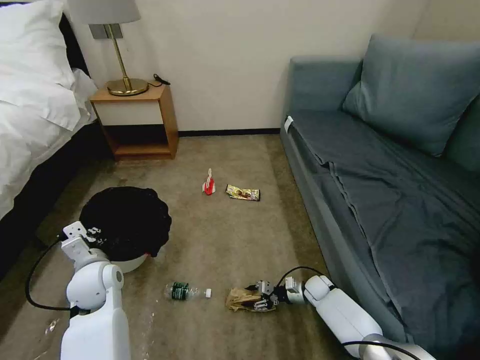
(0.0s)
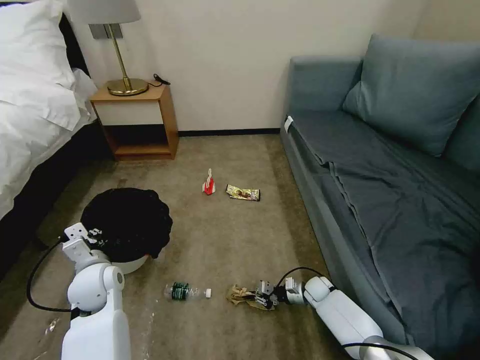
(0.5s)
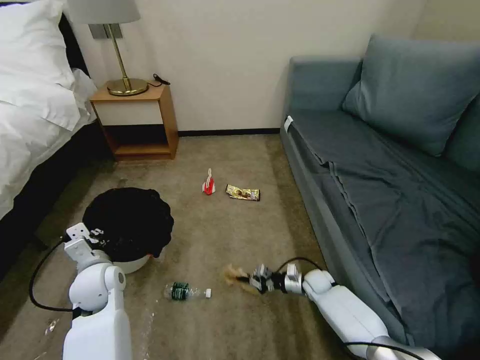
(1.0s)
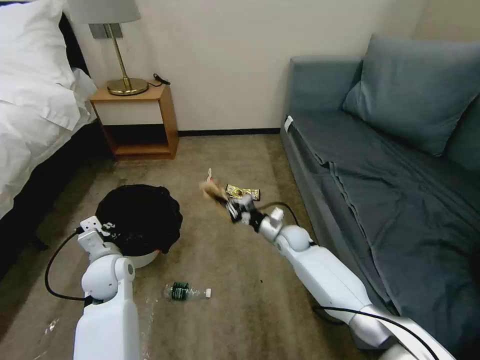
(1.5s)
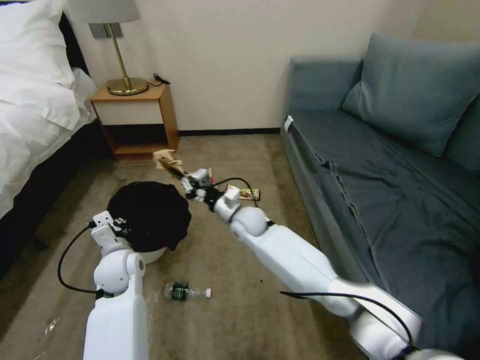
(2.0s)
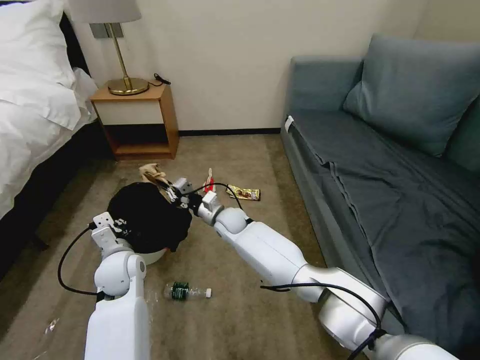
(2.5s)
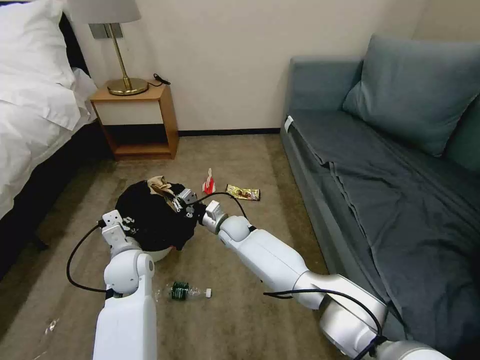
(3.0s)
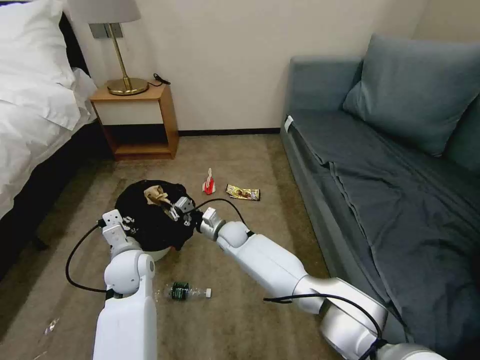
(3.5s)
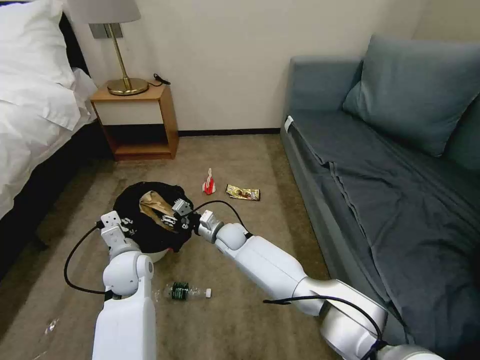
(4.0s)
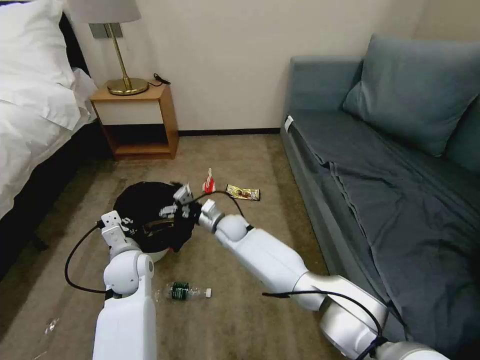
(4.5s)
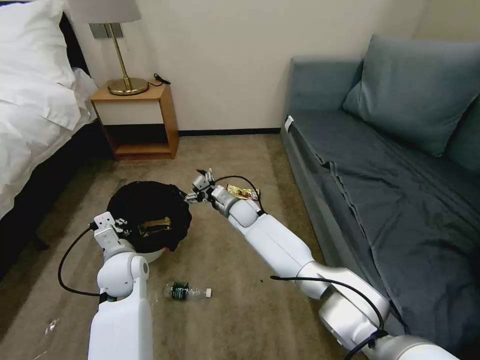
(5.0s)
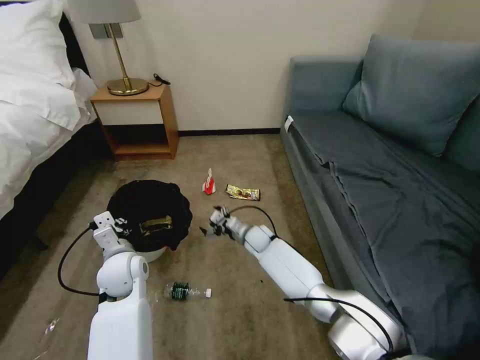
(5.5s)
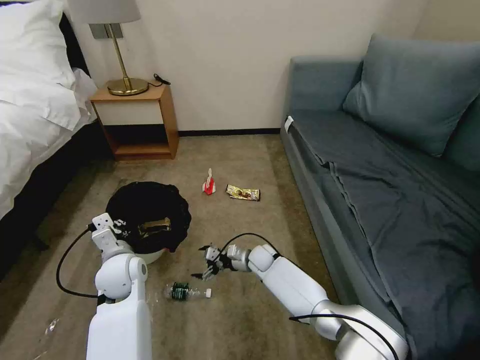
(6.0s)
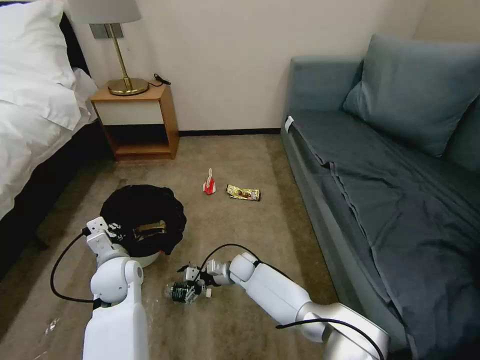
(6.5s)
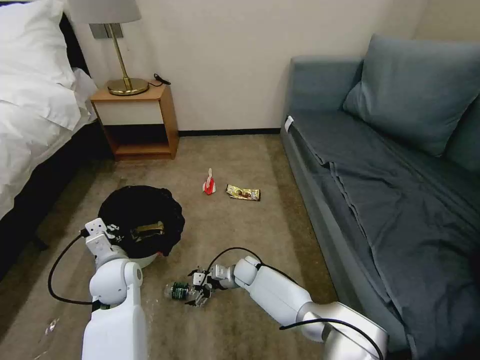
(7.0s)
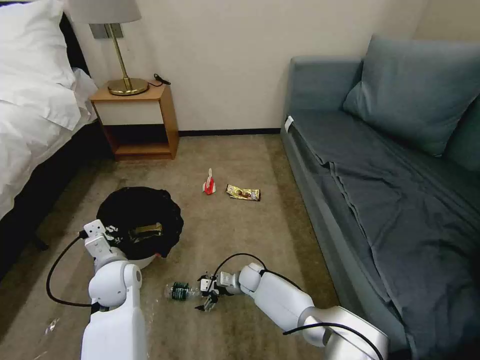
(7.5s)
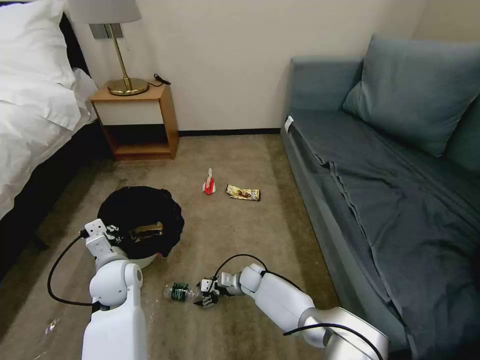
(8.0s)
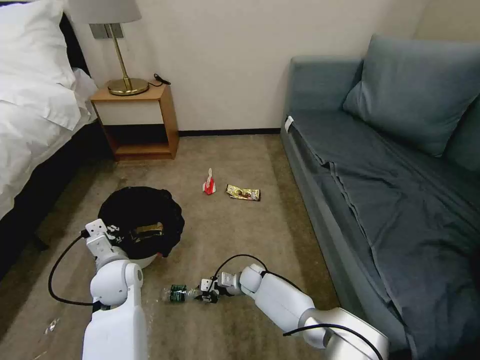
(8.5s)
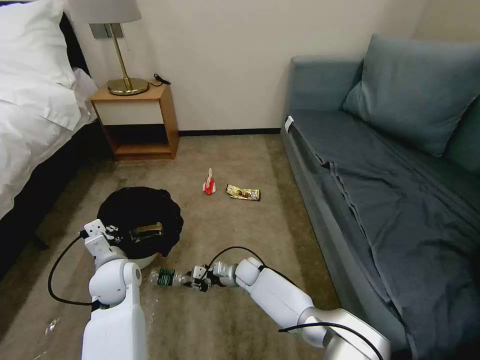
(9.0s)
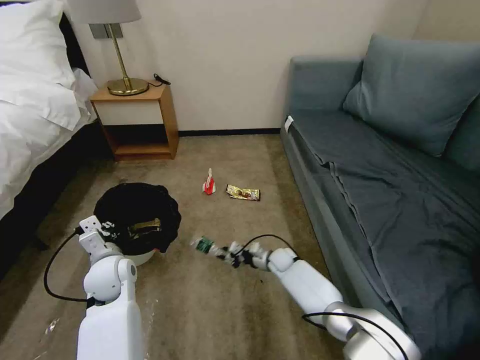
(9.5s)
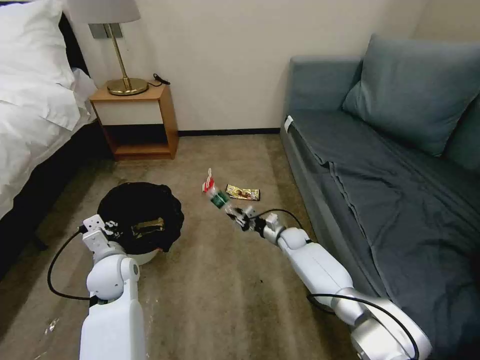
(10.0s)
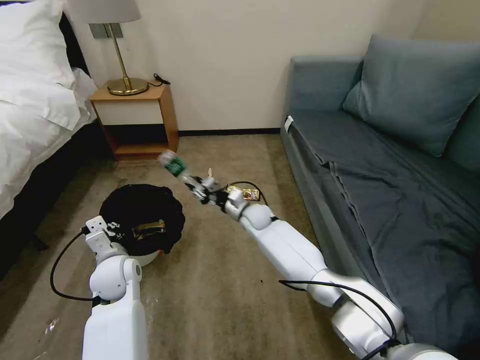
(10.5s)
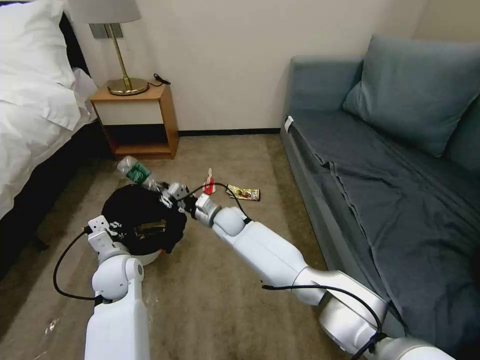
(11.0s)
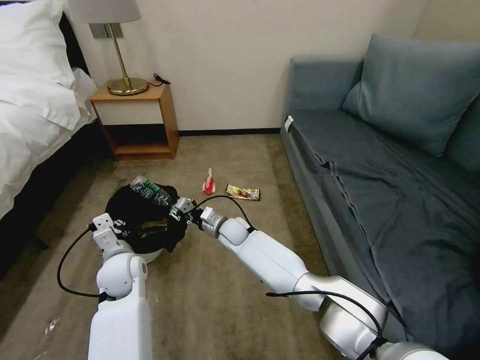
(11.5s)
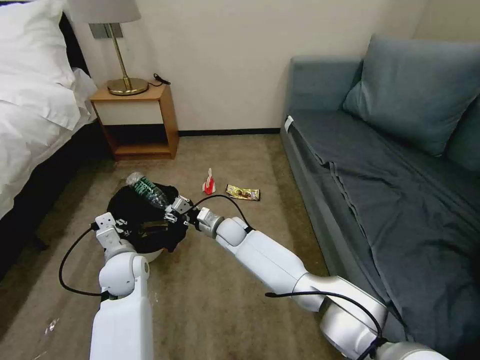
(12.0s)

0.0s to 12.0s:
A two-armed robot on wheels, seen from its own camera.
Task of the whole recording: Pick up the trash bin, then pick up the garbage on the floor and place it into the trash bin.
0.0s to 2.0s: The left gripper shifts by roughly 5 cm. Meanwhile the right gripper goes roughly 35 cm upward and to the left, and closes.
2.0s to 4.0s: The right gripper goes approximately 10 cm downward and to the left, and opens its fingers.
4.0s to 6.0s: The right gripper travels to the right and downward by some 15 cm, and opens.
6.0s to 8.0s: The right gripper heads downward, covering about 5 cm.
8.0s to 10.0s: The right gripper is displaced to the right, forward and upward by about 20 cm, and closes.
10.0s to 12.0s: The right gripper is displaced to the left by roughly 20 cm.

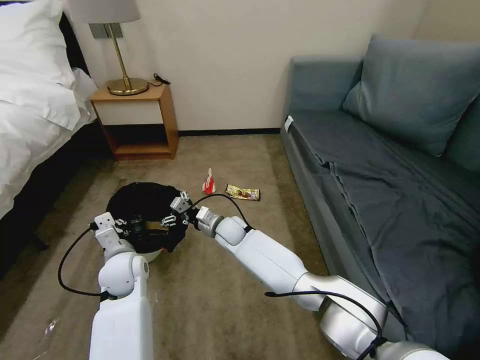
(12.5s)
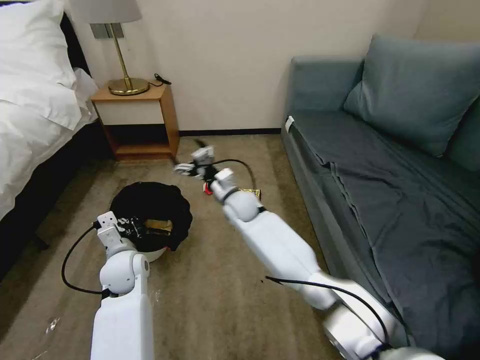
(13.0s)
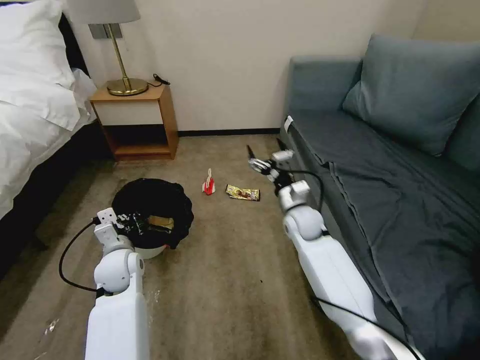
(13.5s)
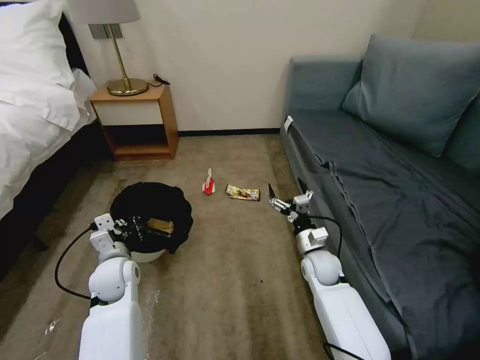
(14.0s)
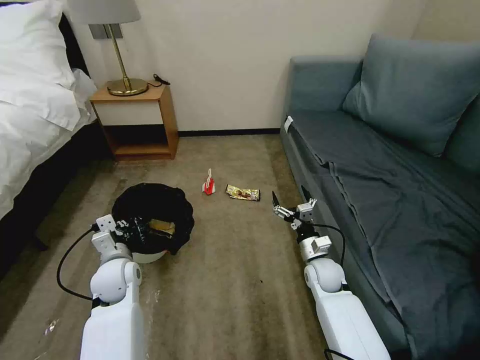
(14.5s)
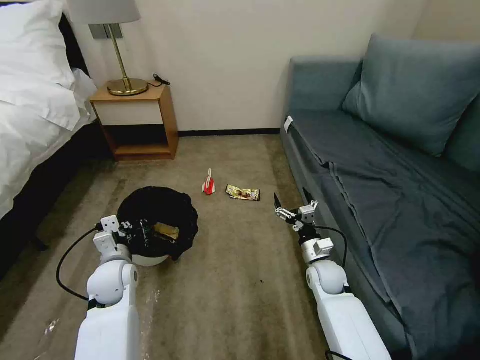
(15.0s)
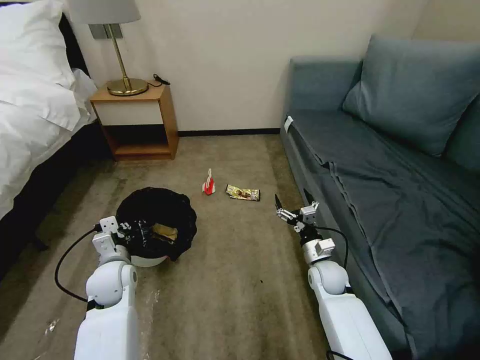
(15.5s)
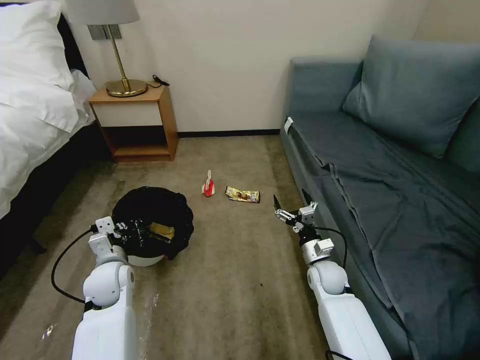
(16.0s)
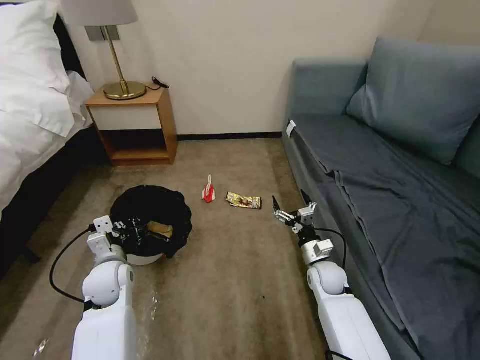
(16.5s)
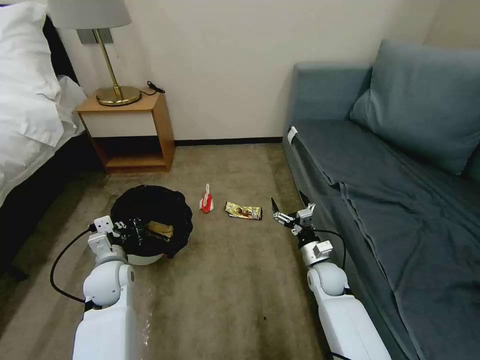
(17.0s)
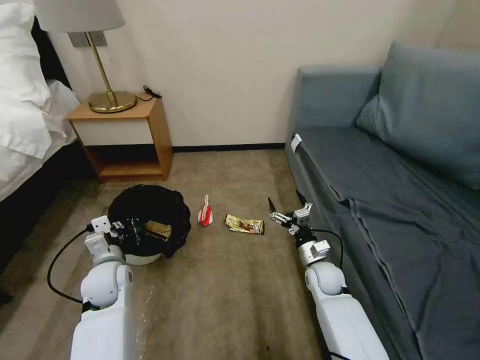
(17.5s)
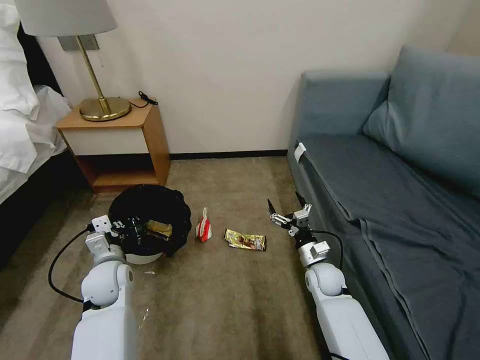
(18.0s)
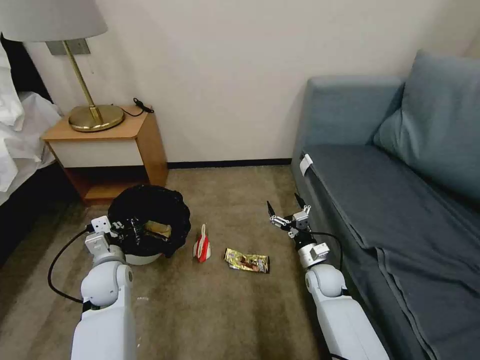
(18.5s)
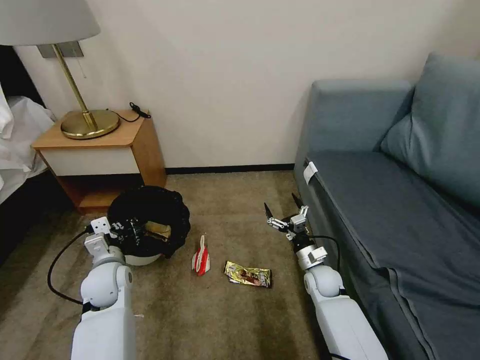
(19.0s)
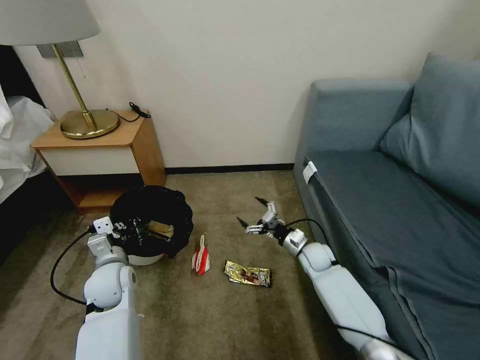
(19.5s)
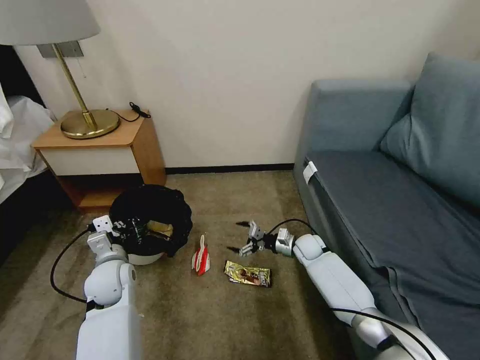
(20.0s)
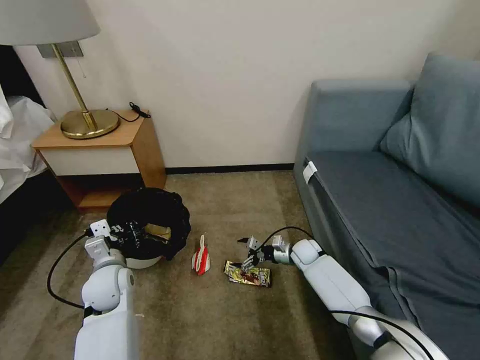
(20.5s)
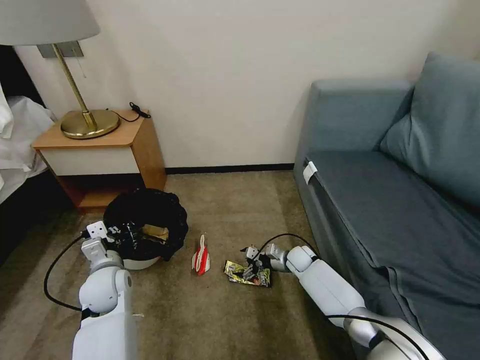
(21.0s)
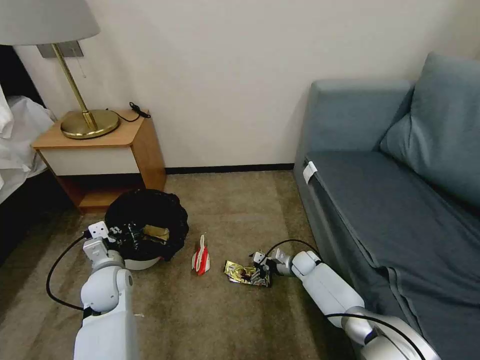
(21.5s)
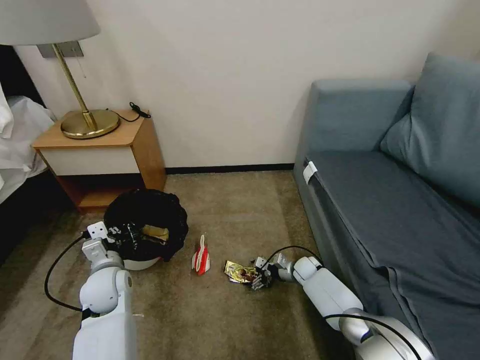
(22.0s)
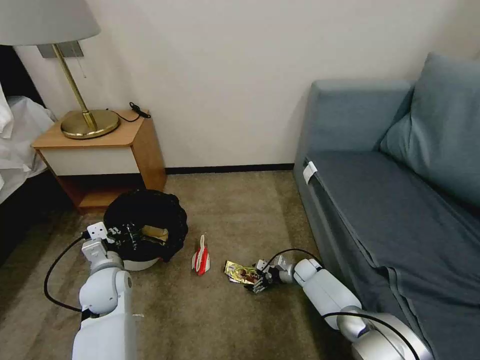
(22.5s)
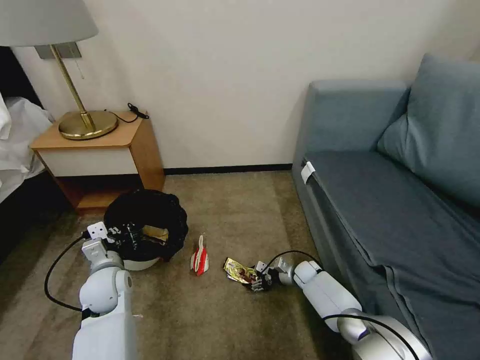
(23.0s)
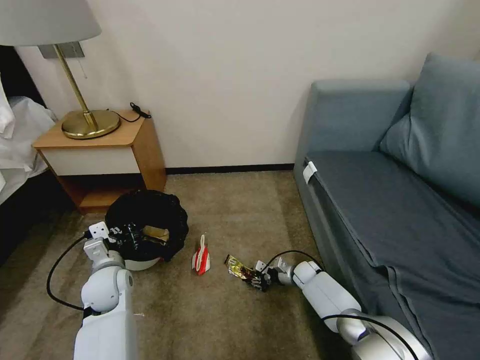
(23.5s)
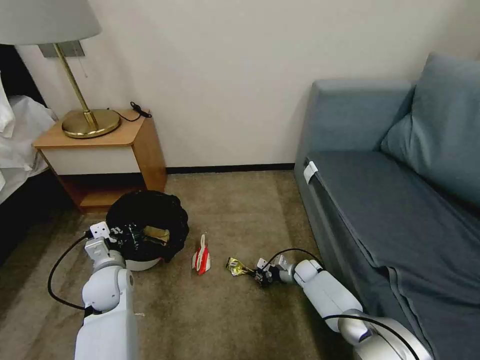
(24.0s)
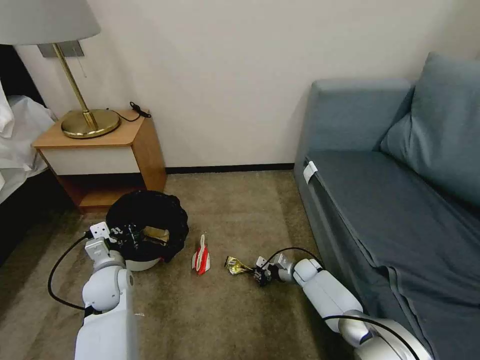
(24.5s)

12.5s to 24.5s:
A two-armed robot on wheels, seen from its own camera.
Task of the whole recording: Pick up the trash bin, then pick up the garbage on the floor and place it into the trash bin.
12.5s to 14.5s: The right gripper goes some 30 cm to the right and backward.
14.5s to 16.5s: The grippers make only small movements.
18.5s to 20.5s: The right gripper shifts roughly 10 cm forward.
20.5s to 22.5s: The right gripper shifts some 10 cm downward.
22.5s to 24.5s: The right gripper closes up.

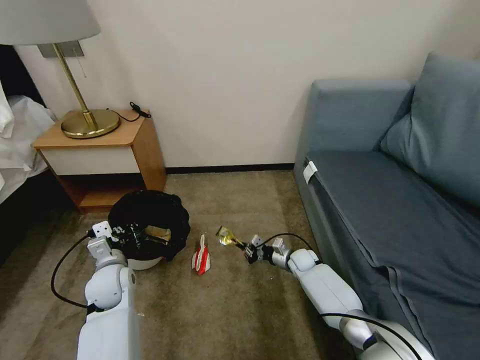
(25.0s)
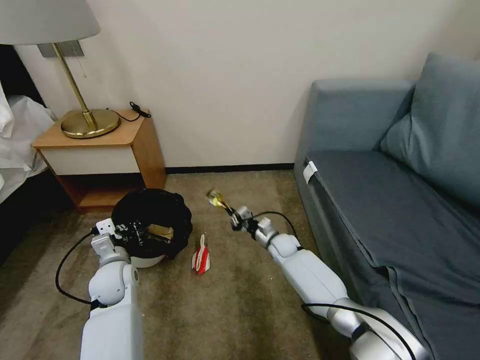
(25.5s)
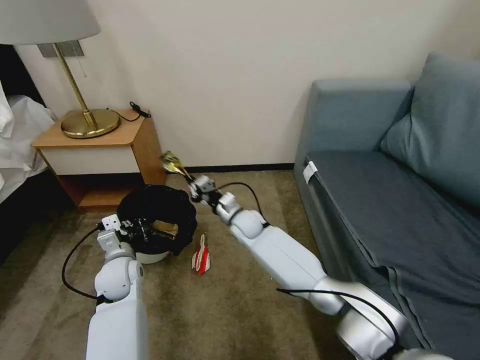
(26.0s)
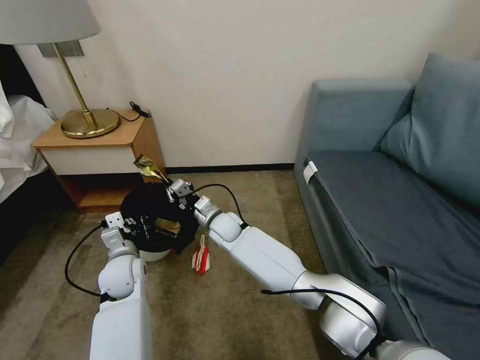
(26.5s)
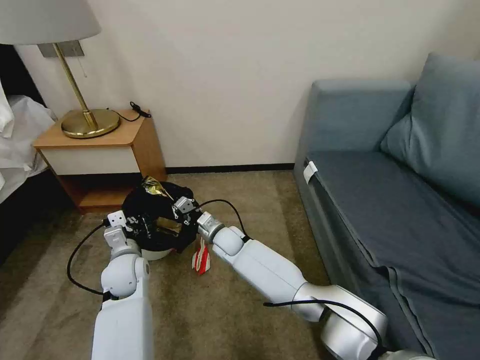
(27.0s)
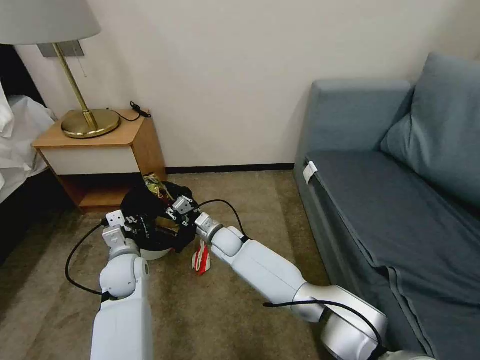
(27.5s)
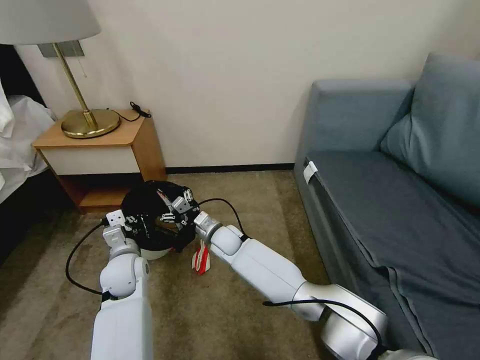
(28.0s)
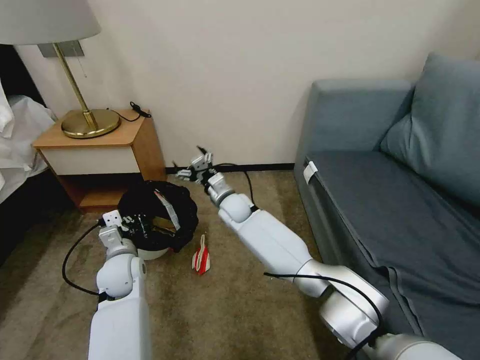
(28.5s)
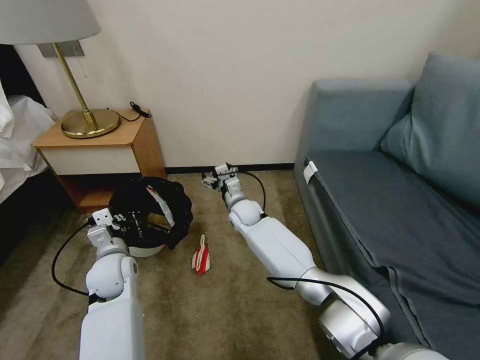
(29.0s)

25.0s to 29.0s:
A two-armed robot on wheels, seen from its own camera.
Task of the whole recording: Pick up the trash bin, then pick up the garbage on the floor and place it into the trash bin.
25.0s to 27.0s: The right gripper heads to the left and upward, covering roughly 30 cm.
27.0s to 29.0s: The right gripper heads forward and upward, covering approximately 10 cm, and opens.
